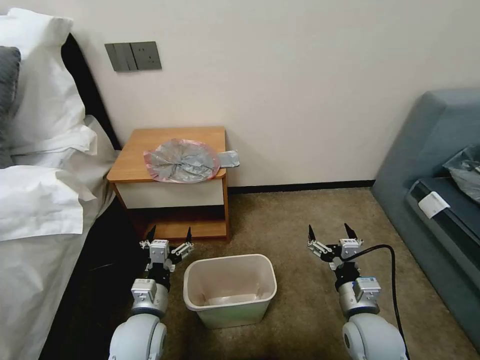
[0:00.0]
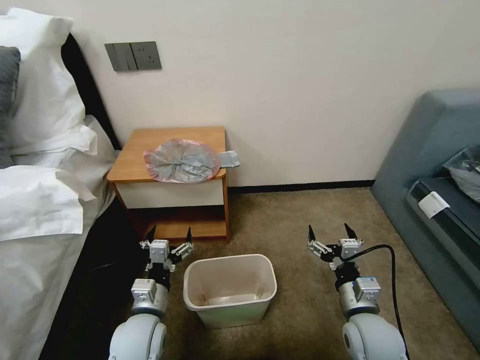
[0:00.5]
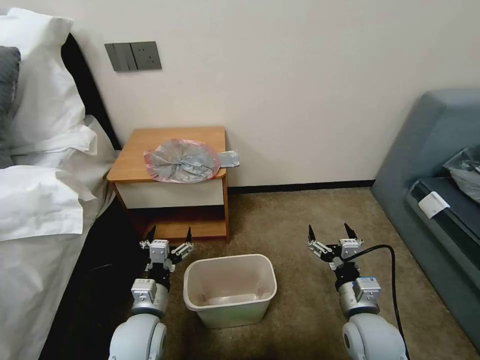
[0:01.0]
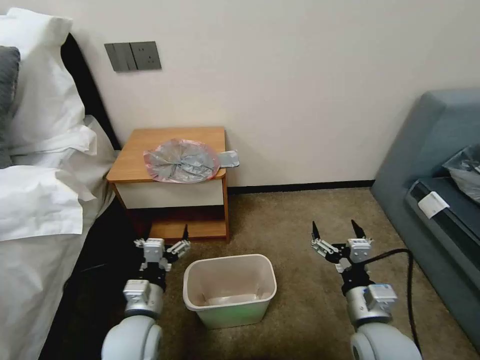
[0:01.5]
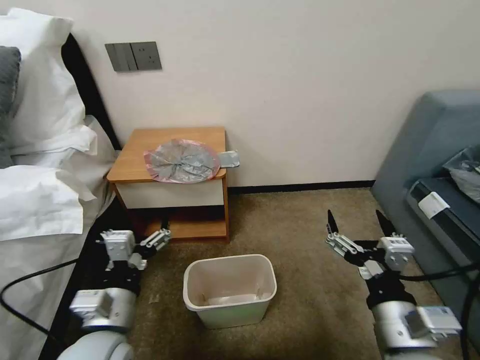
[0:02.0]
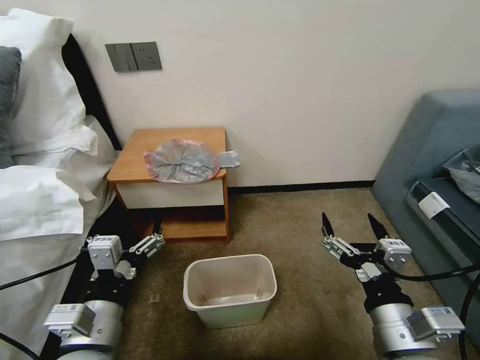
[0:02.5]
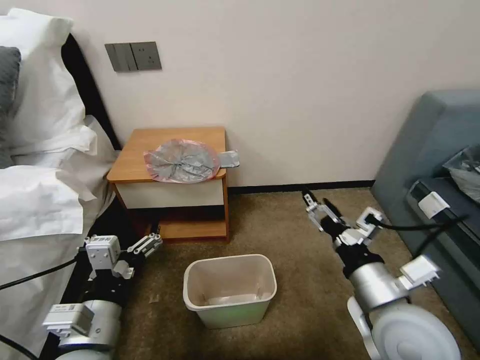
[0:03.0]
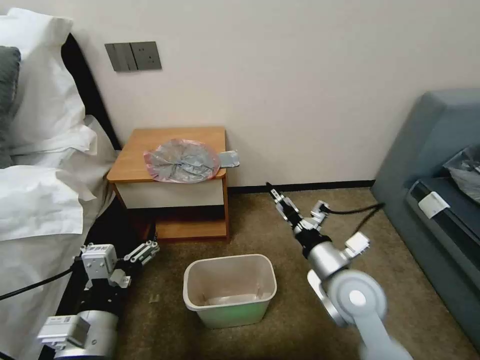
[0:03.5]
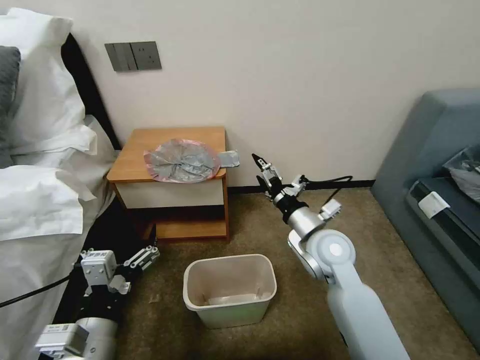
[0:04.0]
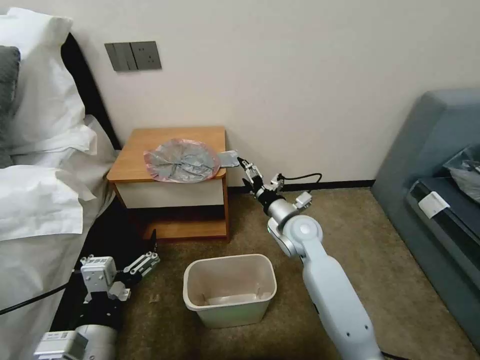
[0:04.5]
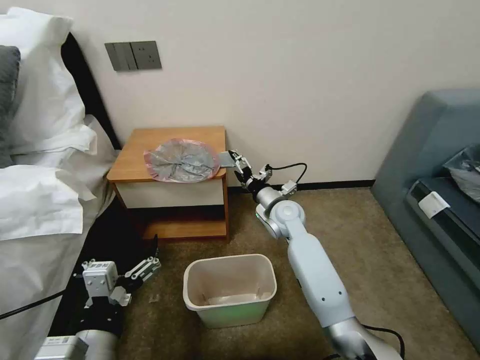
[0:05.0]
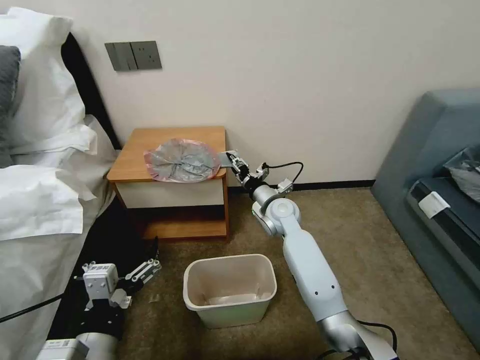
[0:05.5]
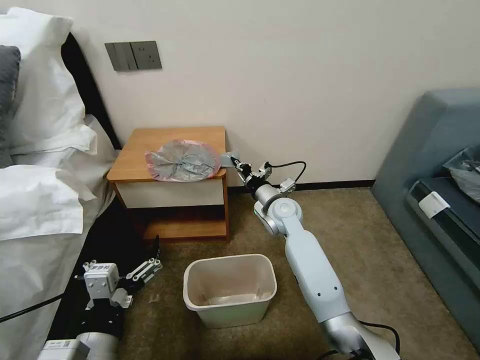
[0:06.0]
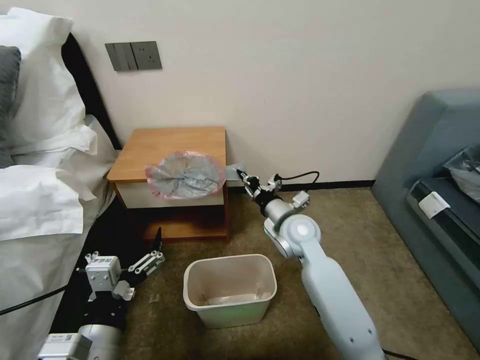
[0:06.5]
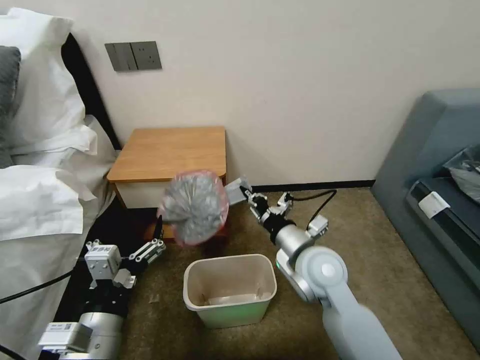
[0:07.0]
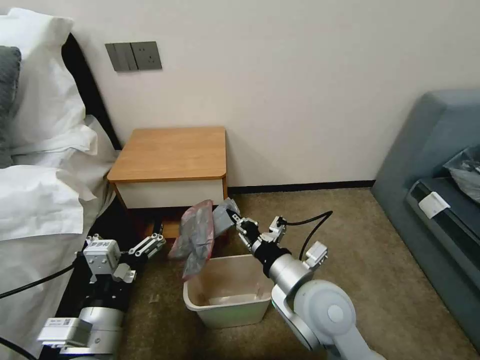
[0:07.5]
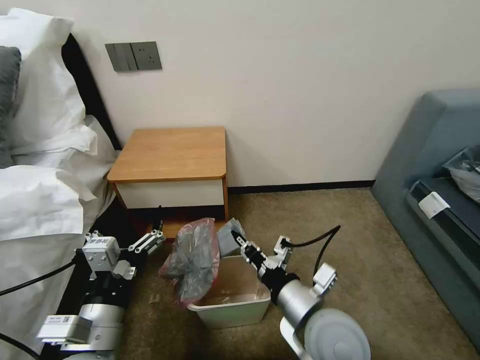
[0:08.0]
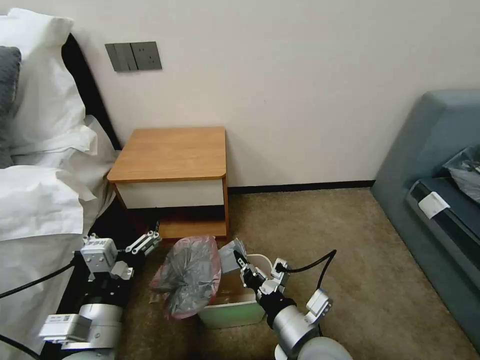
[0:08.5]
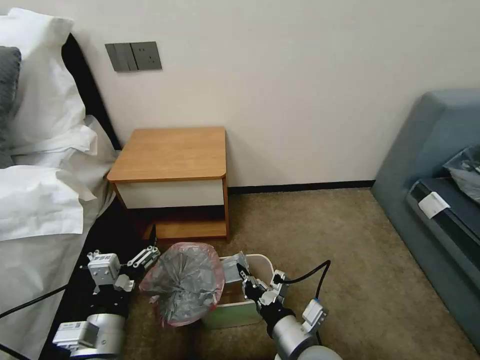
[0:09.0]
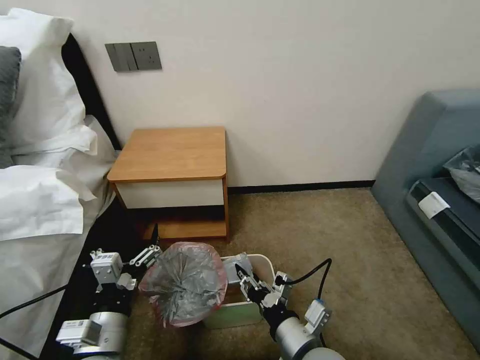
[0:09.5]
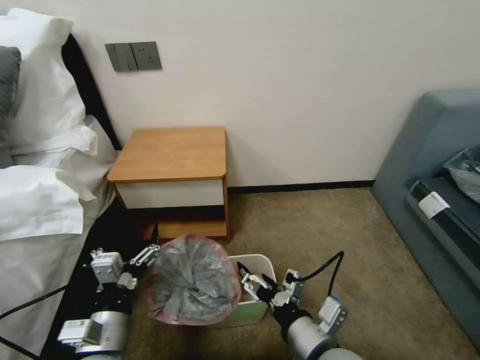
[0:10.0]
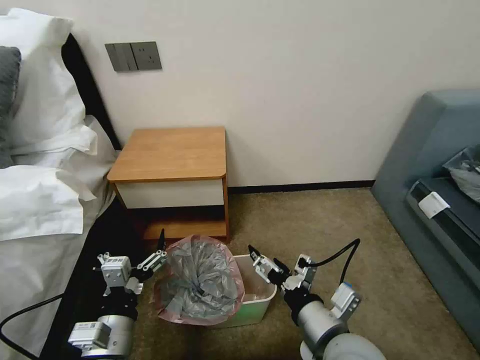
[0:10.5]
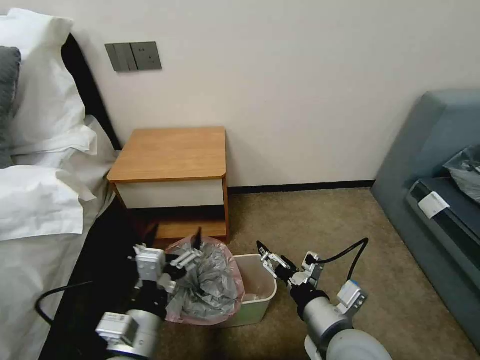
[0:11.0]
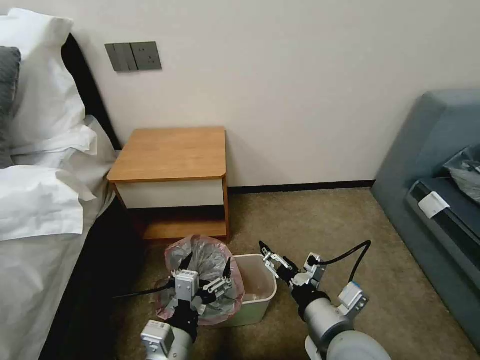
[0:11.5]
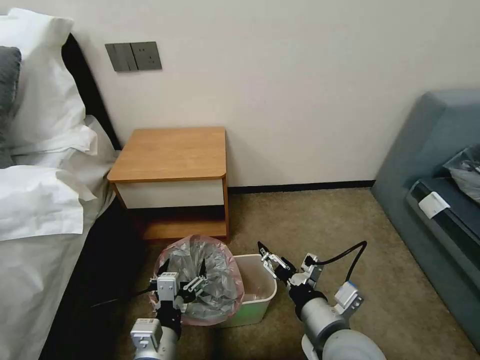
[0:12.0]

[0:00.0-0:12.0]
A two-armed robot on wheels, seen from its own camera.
Task of the whole recording: Pick up the garbage bag from the table and place it over the trash can.
0:02.0 to 0:04.0: The right gripper moves forward, about 20 cm.
0:04.0 to 0:06.0: The right gripper goes some 15 cm forward, to the left and downward, and closes up.
0:06.0 to 0:08.0: The right gripper is displaced backward by some 30 cm.
0:08.0 to 0:10.0: The left gripper heads downward, covering about 5 cm. Meanwhile the right gripper goes about 5 cm backward, moves roughly 10 cm downward and comes back, and opens.
0:10.0 to 0:12.0: The left gripper travels to the right by some 5 cm.

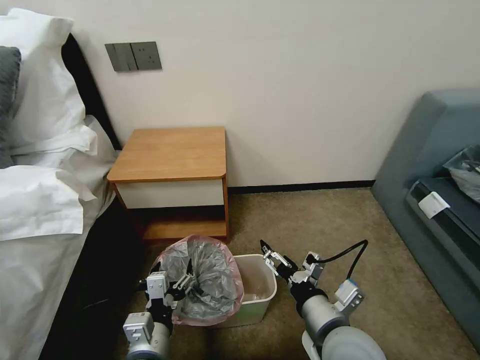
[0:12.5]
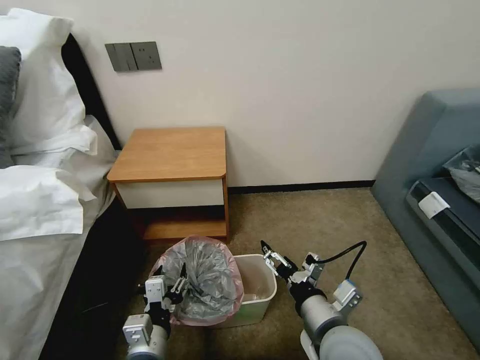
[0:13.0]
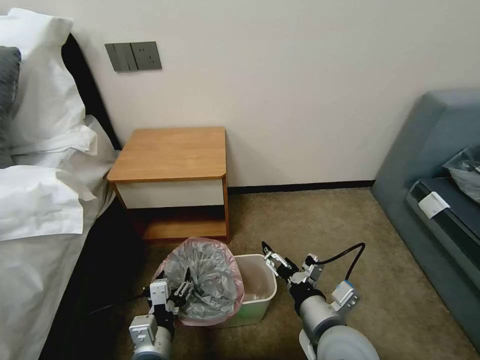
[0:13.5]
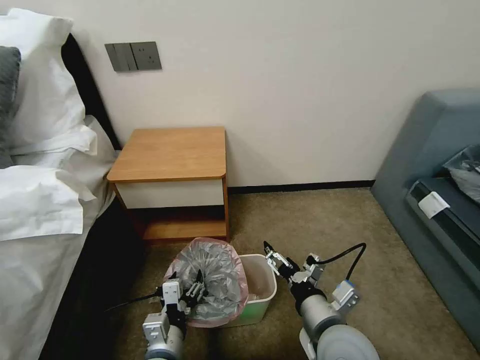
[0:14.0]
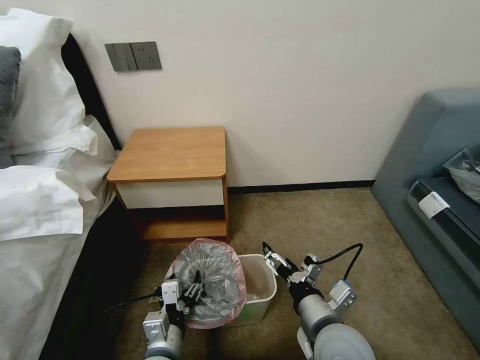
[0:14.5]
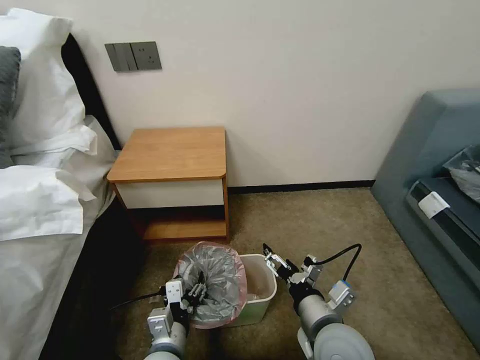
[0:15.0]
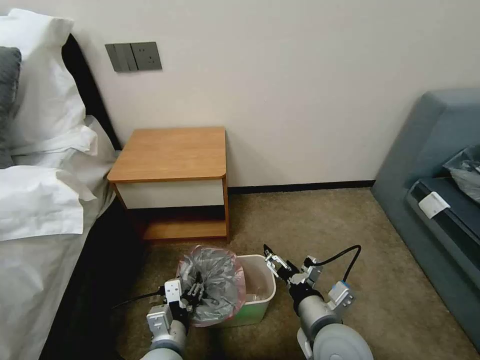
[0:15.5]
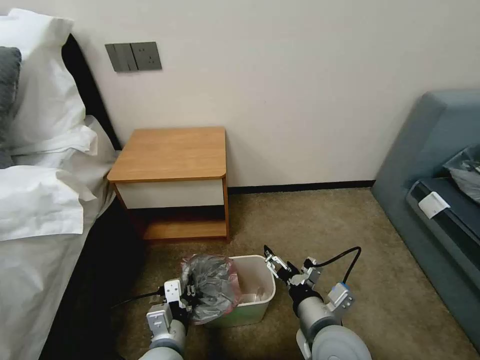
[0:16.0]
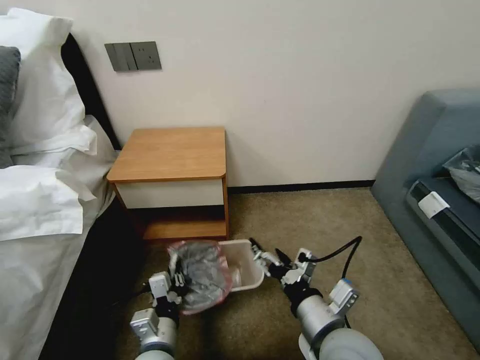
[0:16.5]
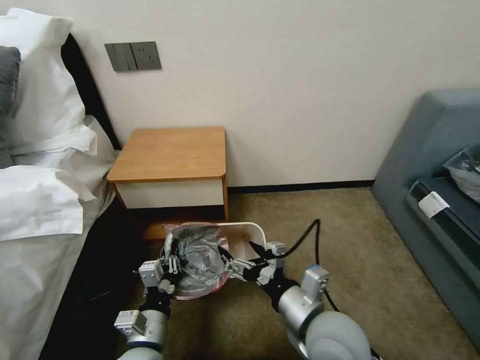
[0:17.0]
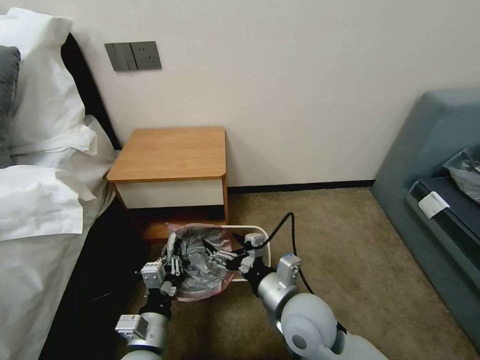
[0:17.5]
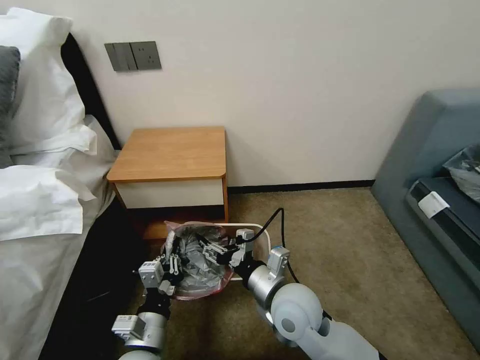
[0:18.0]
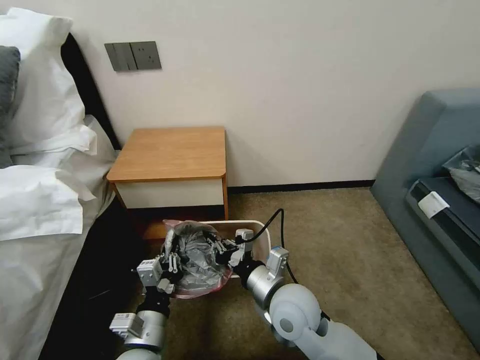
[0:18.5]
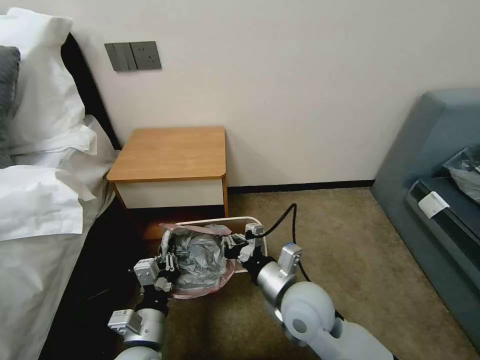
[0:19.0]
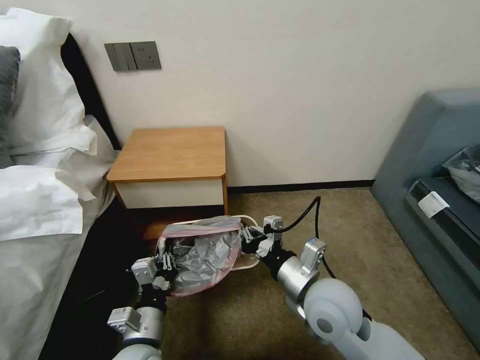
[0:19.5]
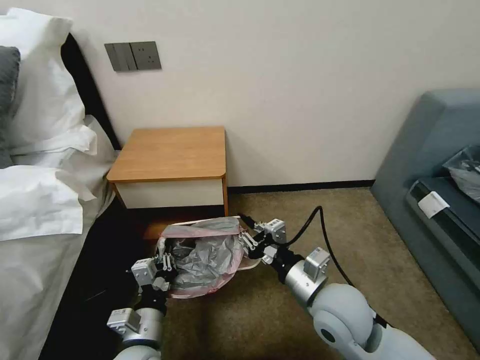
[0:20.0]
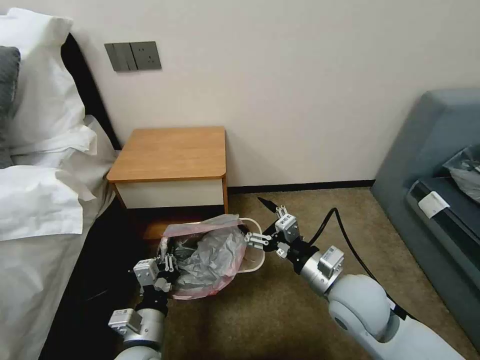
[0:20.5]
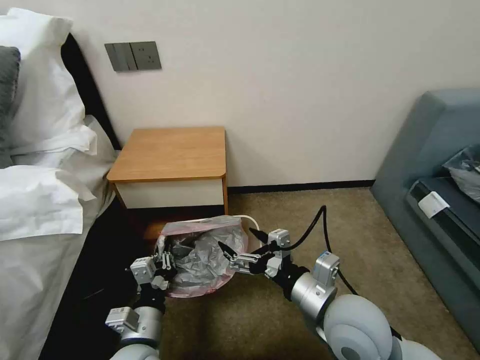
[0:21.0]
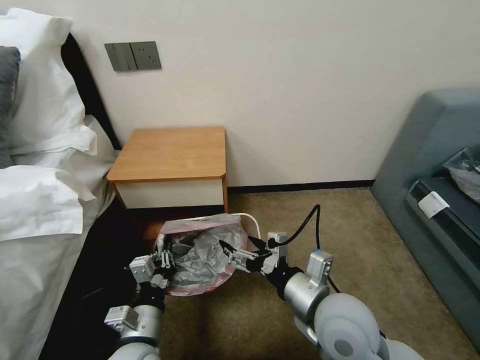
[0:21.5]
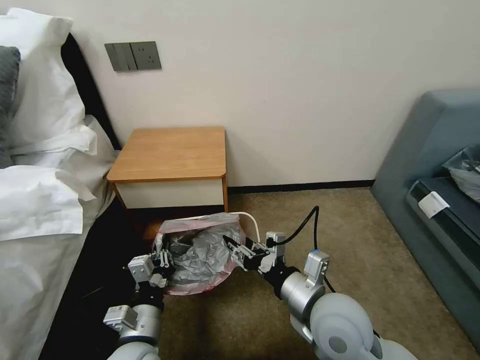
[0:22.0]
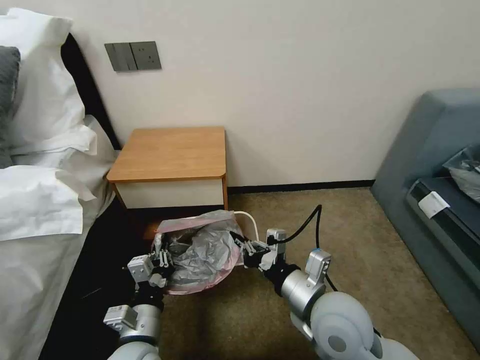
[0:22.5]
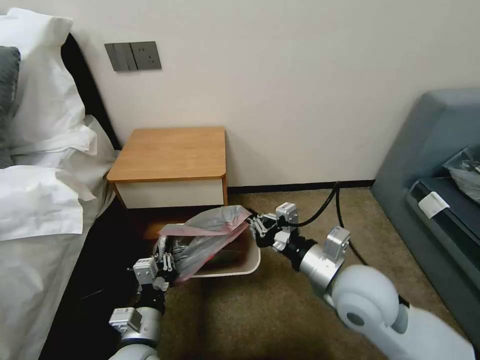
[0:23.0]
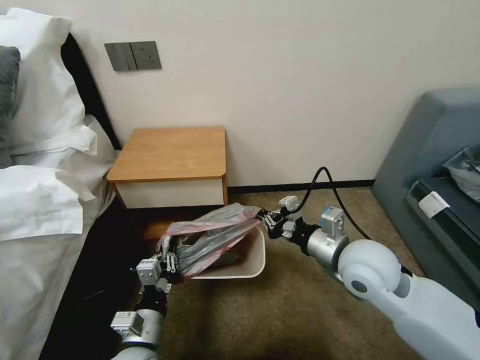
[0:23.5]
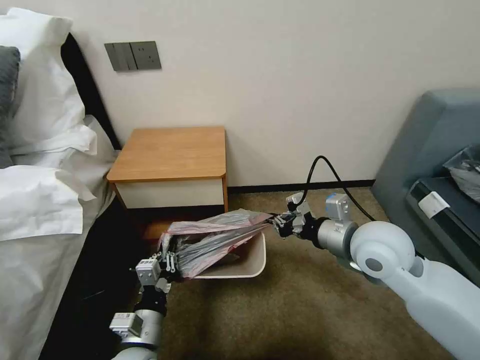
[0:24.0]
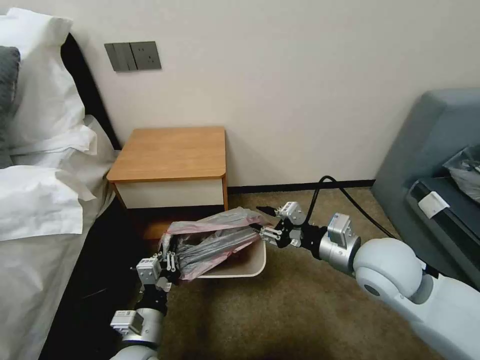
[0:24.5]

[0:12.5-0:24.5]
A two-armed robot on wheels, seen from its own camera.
Task of the whole recording: Pick up the garbage bag from the table and place it over the trash can.
0:12.5 to 0:14.5: There are only small adjustments of the grippers.
0:14.5 to 0:16.5: The left gripper closes.
0:16.5 to 0:18.5: The right gripper travels forward and to the left by approximately 10 cm, and closes up.
0:18.5 to 0:20.5: The right gripper shifts about 10 cm to the right, and opens.
0:20.5 to 0:22.5: The right gripper changes place by roughly 5 cm, and closes.
0:22.5 to 0:24.5: The right gripper heads to the right, forward and upward, covering about 10 cm, and opens.

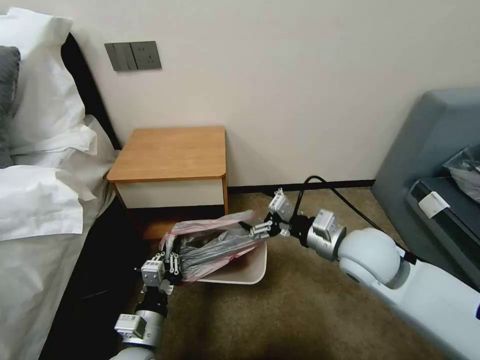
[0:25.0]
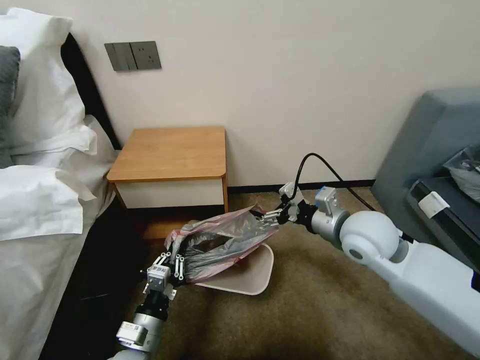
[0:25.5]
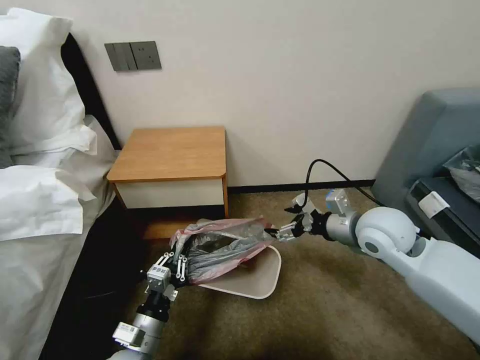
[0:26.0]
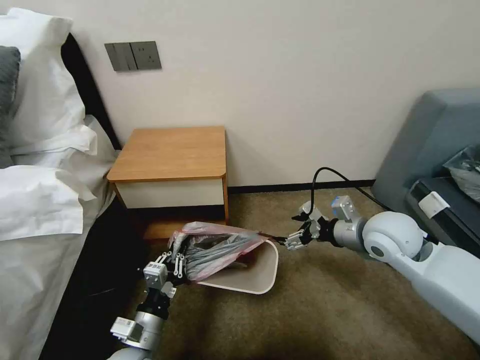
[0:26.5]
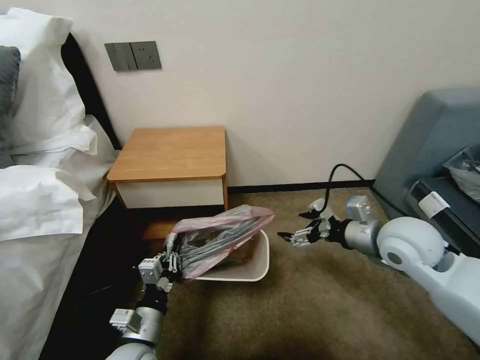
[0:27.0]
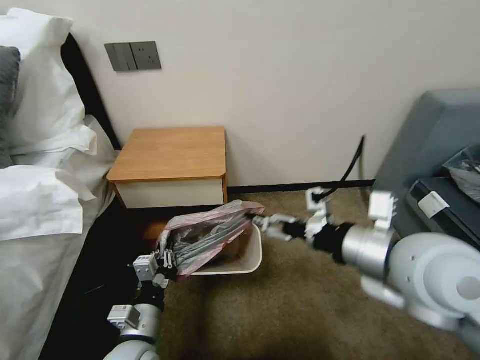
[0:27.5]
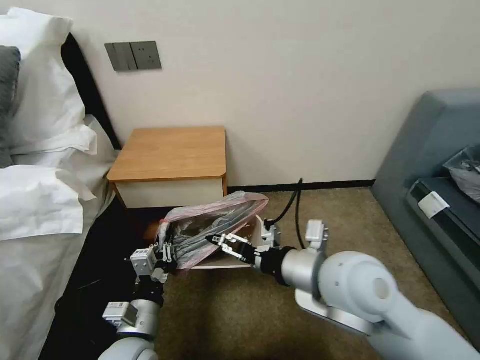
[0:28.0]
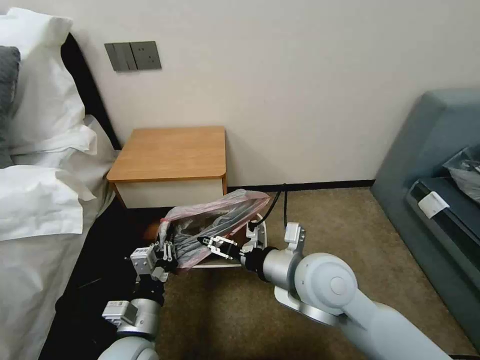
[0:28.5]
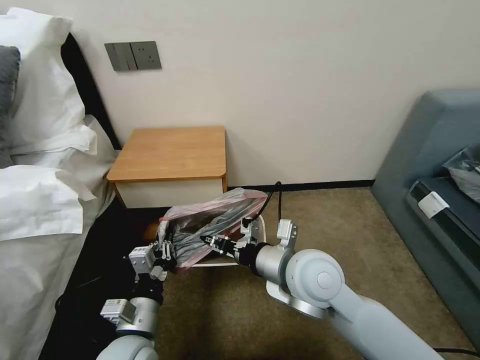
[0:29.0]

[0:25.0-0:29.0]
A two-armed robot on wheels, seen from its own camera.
Task of the whole recording: Pick up the garbage bag from the table and place it over the trash can.
0:25.0 to 0:27.0: The right gripper travels to the right by roughly 10 cm.
0:27.0 to 0:29.0: The right gripper moves to the left, about 20 cm, and closes.
